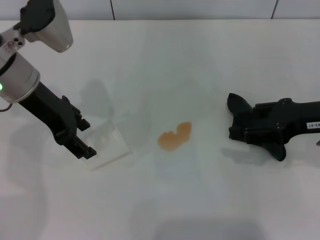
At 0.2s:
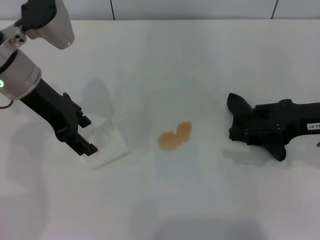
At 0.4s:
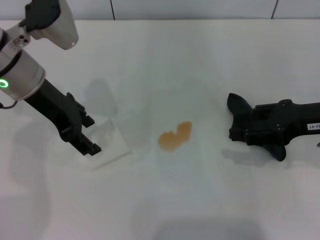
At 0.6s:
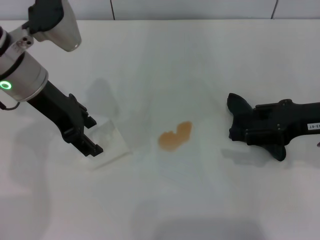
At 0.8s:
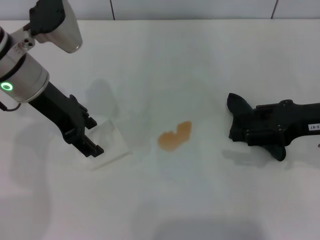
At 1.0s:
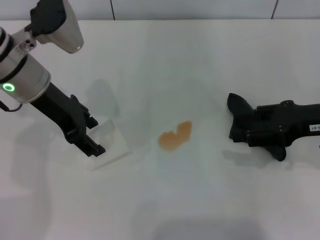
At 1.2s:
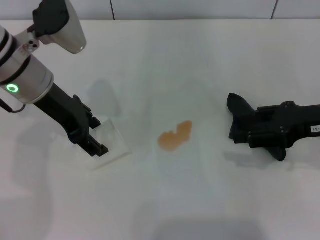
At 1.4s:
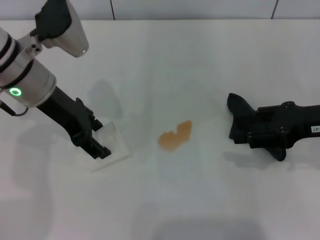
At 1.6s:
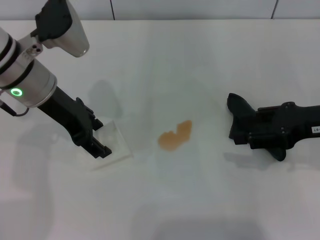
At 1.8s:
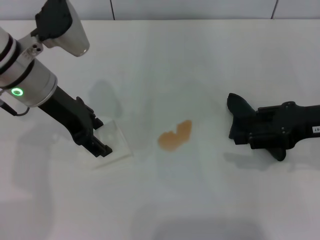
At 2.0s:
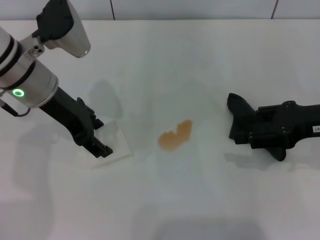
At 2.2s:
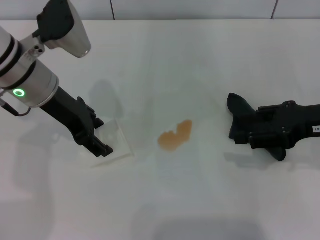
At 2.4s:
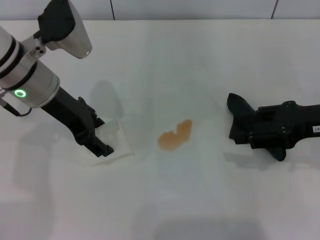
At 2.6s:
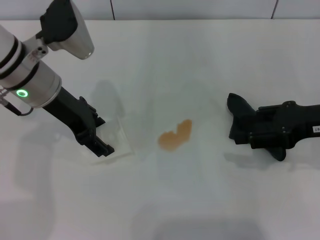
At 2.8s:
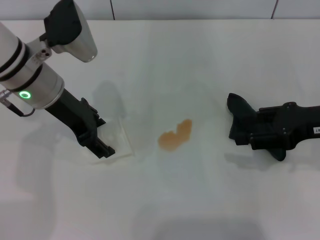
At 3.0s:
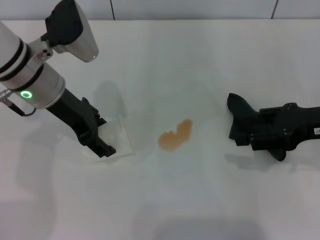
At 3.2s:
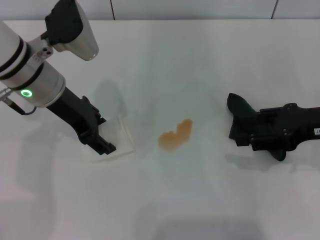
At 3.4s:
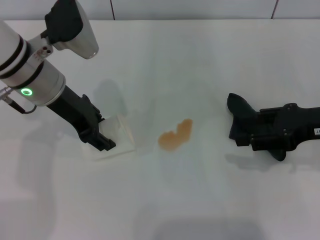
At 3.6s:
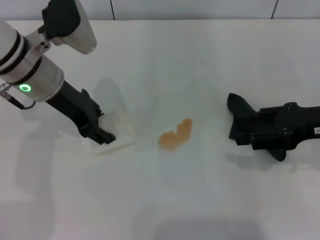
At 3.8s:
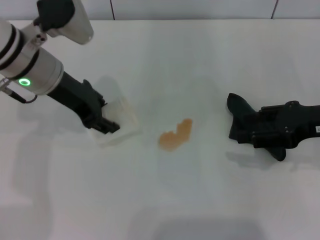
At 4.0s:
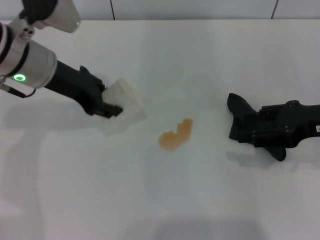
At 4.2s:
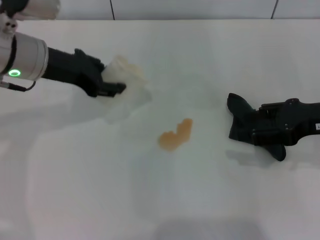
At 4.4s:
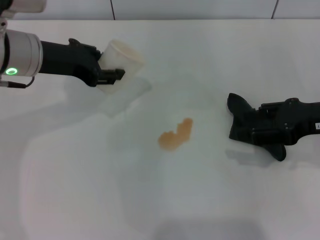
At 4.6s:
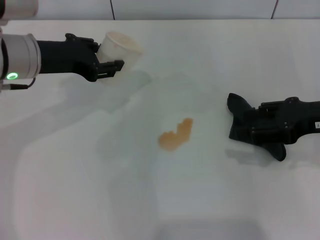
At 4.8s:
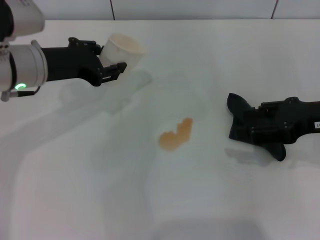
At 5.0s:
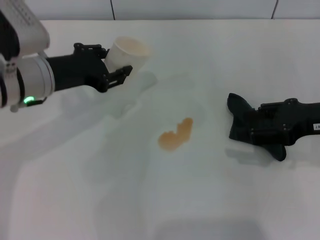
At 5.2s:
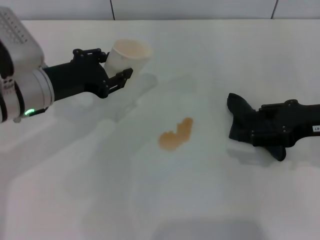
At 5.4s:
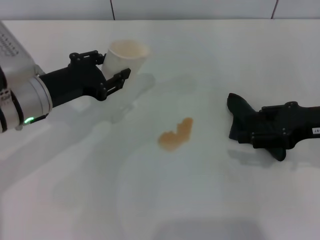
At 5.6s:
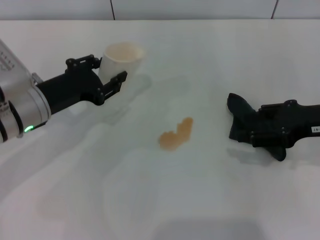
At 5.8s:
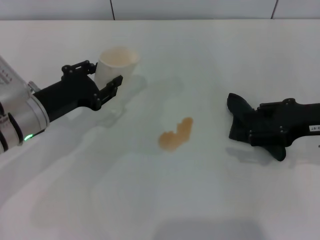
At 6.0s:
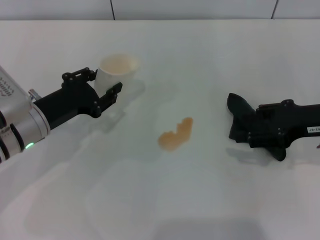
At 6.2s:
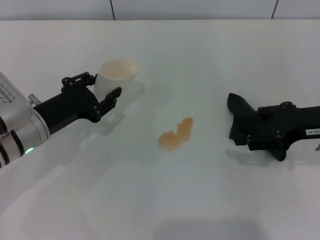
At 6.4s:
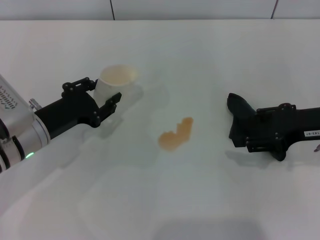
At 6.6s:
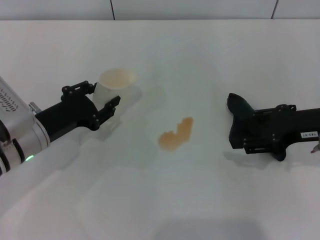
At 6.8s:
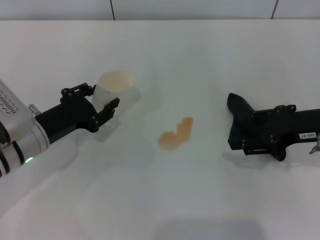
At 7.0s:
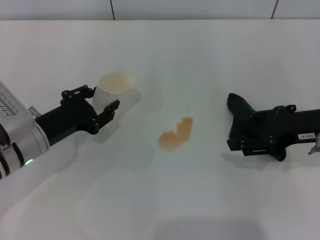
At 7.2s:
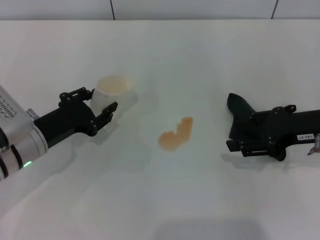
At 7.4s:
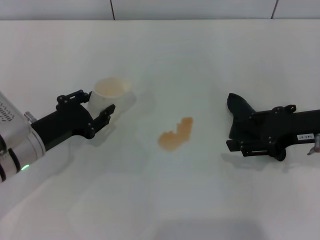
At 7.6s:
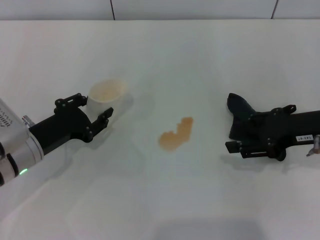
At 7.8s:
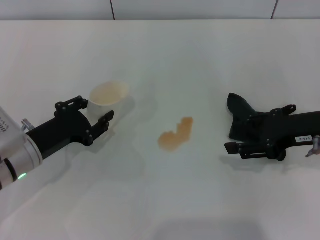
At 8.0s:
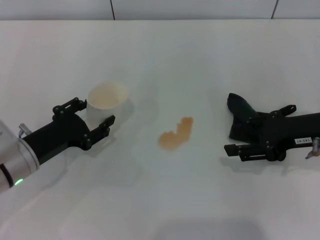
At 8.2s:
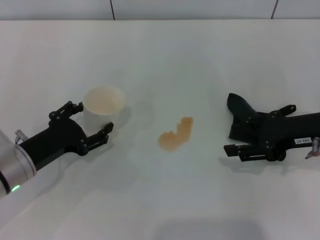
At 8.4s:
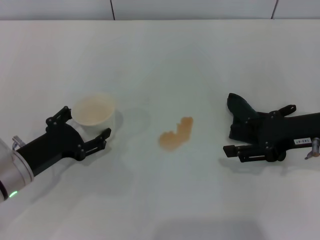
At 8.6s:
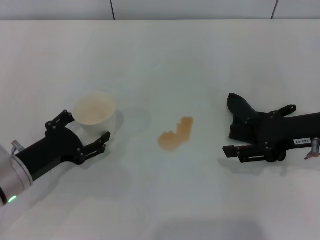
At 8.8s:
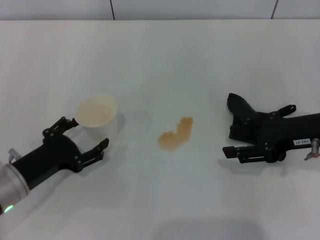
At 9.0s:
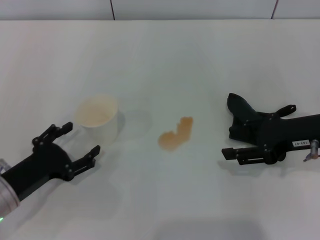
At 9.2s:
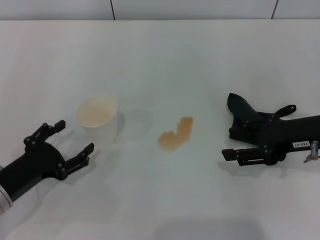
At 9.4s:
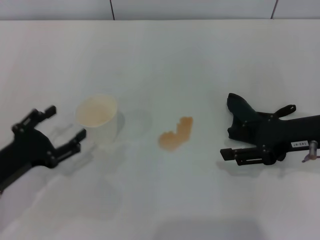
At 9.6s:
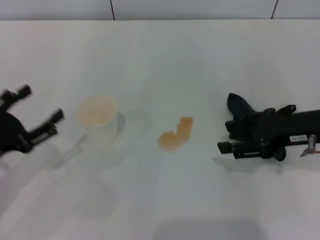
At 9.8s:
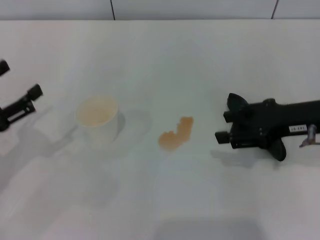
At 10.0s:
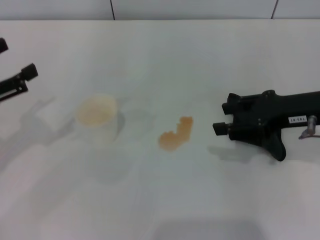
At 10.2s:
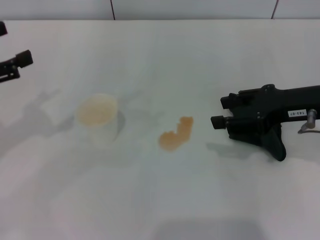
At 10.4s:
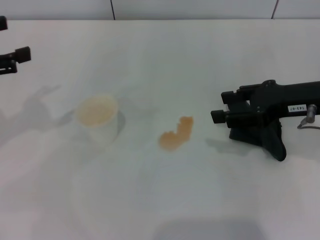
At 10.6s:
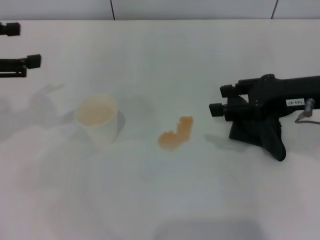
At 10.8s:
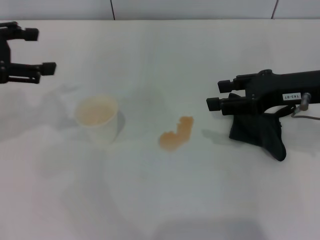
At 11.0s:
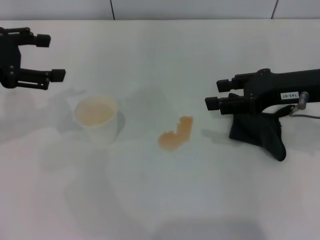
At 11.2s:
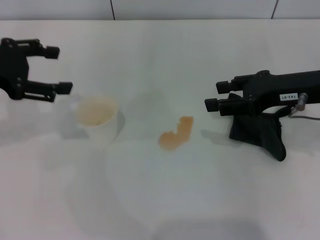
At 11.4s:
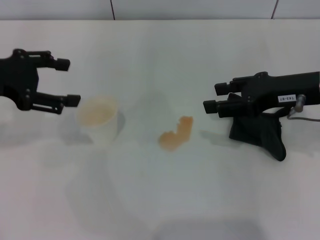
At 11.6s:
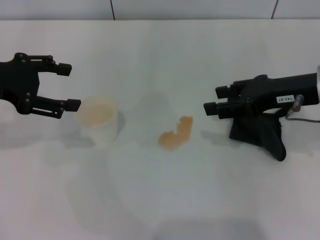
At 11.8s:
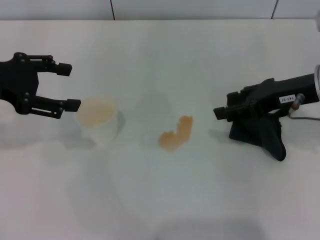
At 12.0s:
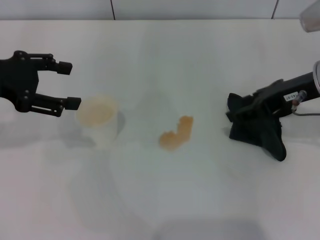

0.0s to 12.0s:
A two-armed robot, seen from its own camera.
Step, 0.0s to 3.4s: Grasp the paper cup with the left gripper.
Step, 3.6s to 9.0s: Stand the paper cup upright with the left gripper.
0.0s to 1.6s: The grippers stay close to where they were, moving slightly.
1.6s to 3.0s: Both grippers stay about where they are.
3.0s to 4.4s: The left gripper closes up.
4.4s to 6.0s: The left gripper shifts about 15 cm downward and backward.
6.0s to 7.6s: The grippers stay close to where they were, moving slightly.
7.6s to 9.0s: The left gripper travels backward by approximately 5 cm, and opens its fingers.
9.0s to 10.4s: The left gripper moves upward, forward and to the left, some 20 cm.
10.4s to 12.0s: The left gripper moves to the right, roughly 5 cm.

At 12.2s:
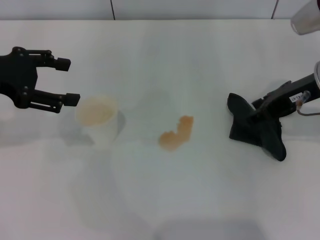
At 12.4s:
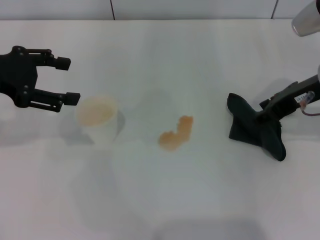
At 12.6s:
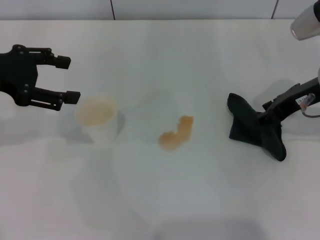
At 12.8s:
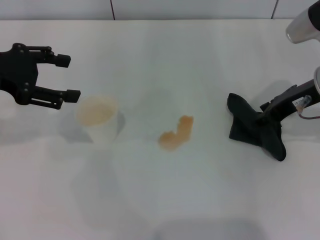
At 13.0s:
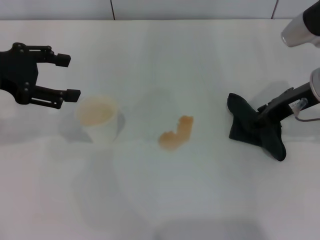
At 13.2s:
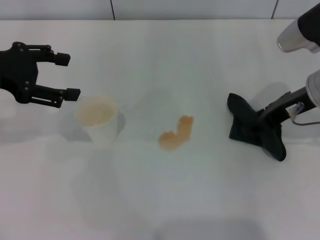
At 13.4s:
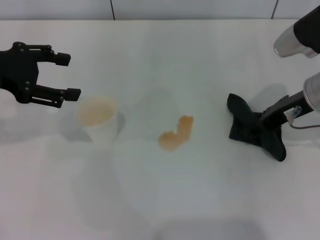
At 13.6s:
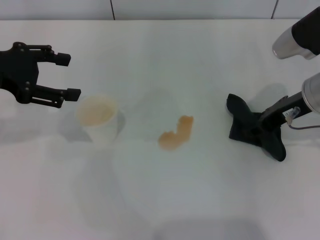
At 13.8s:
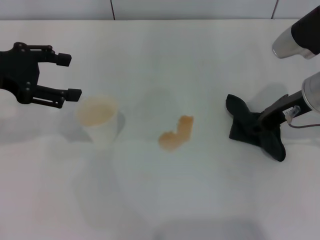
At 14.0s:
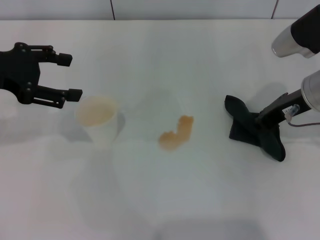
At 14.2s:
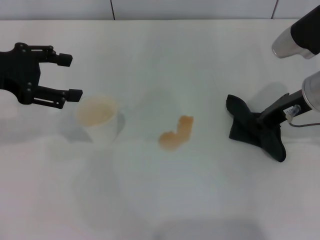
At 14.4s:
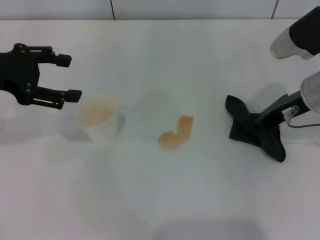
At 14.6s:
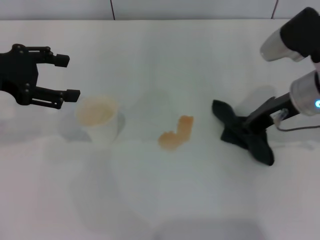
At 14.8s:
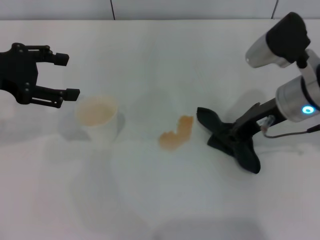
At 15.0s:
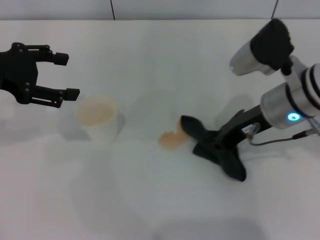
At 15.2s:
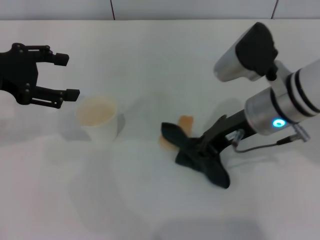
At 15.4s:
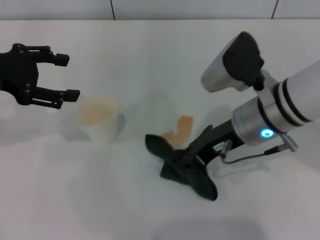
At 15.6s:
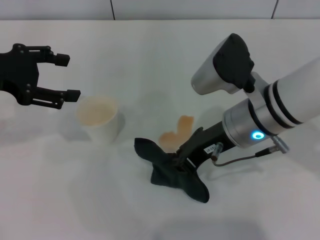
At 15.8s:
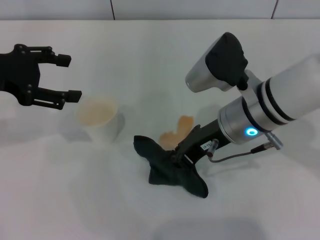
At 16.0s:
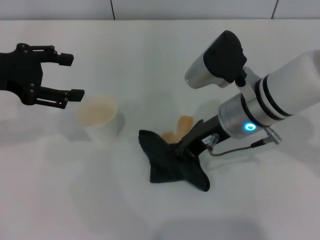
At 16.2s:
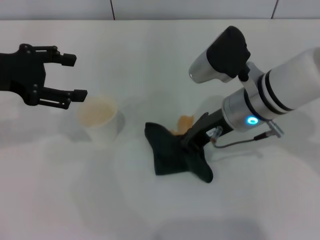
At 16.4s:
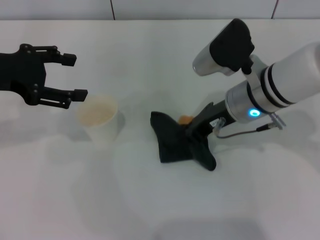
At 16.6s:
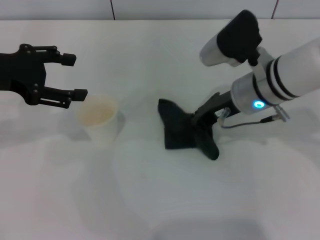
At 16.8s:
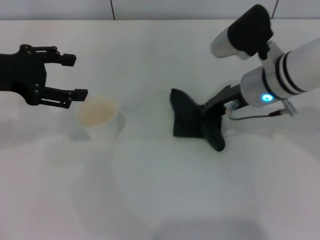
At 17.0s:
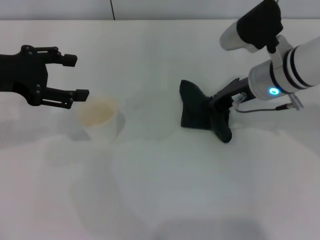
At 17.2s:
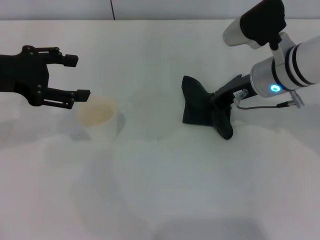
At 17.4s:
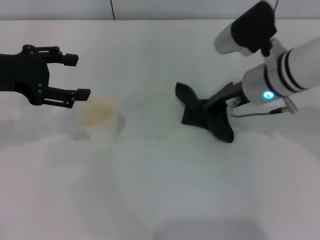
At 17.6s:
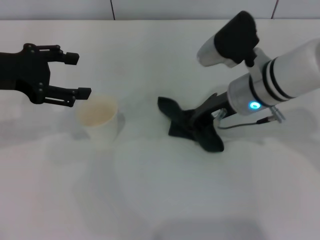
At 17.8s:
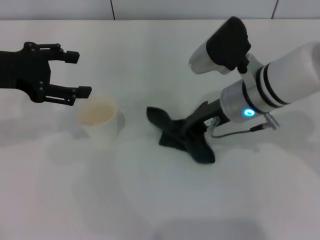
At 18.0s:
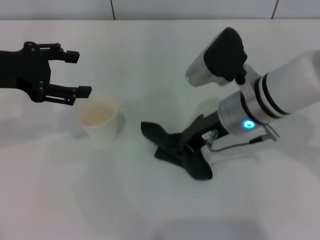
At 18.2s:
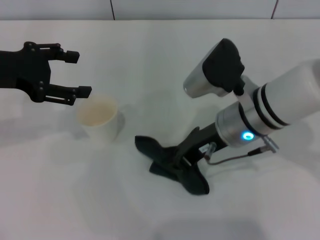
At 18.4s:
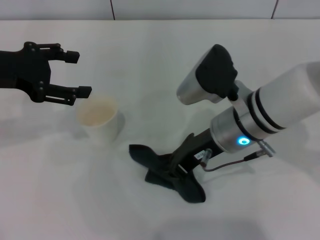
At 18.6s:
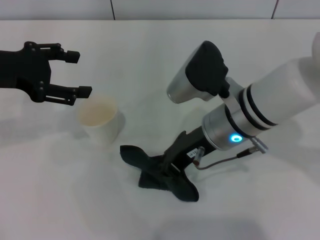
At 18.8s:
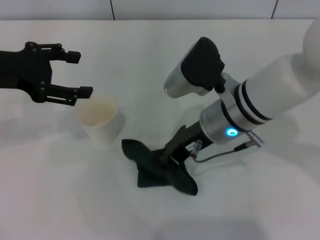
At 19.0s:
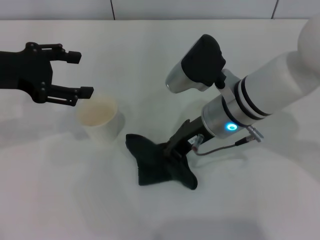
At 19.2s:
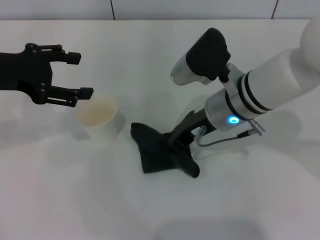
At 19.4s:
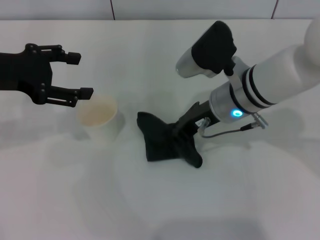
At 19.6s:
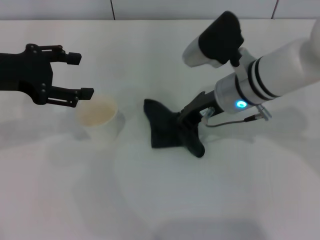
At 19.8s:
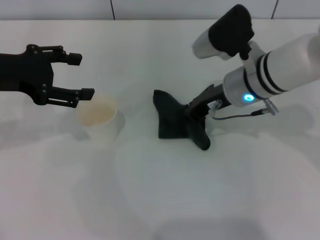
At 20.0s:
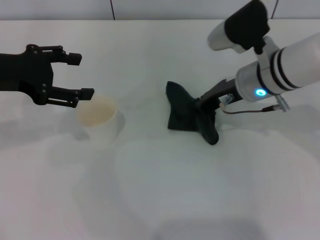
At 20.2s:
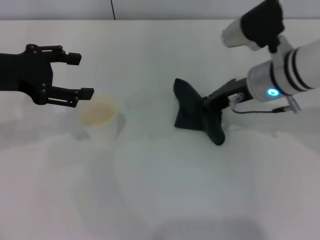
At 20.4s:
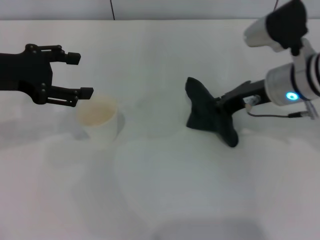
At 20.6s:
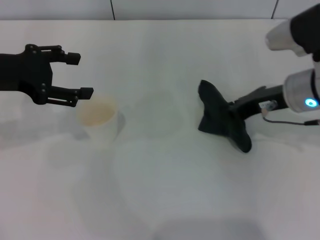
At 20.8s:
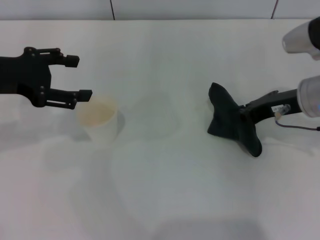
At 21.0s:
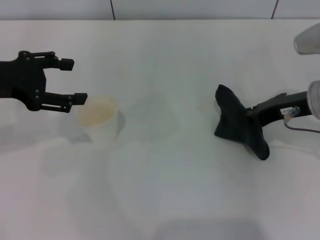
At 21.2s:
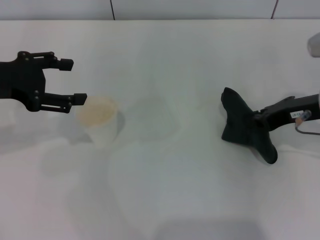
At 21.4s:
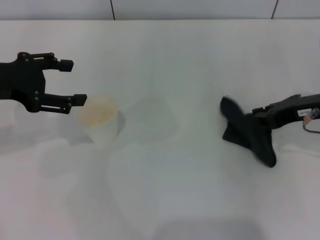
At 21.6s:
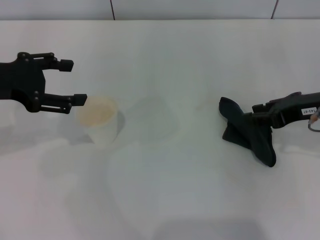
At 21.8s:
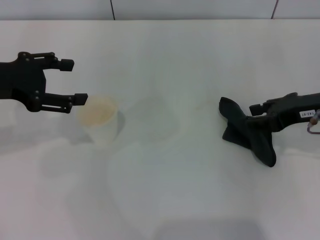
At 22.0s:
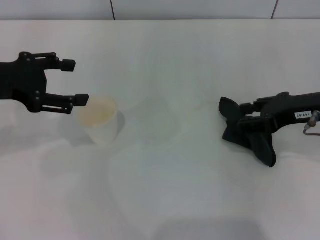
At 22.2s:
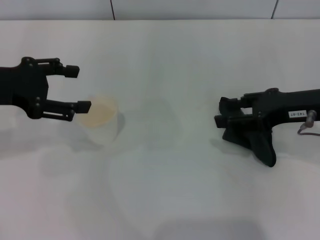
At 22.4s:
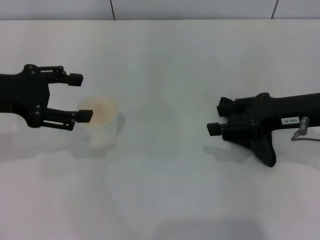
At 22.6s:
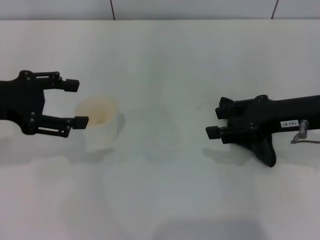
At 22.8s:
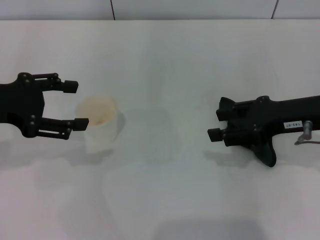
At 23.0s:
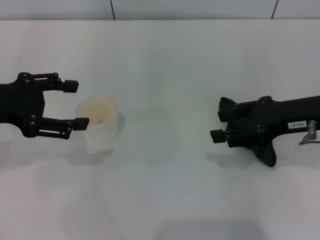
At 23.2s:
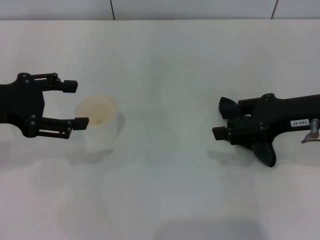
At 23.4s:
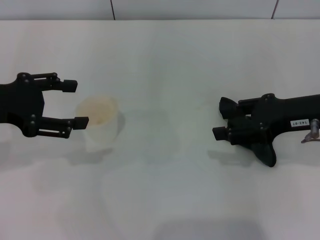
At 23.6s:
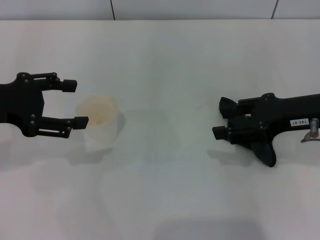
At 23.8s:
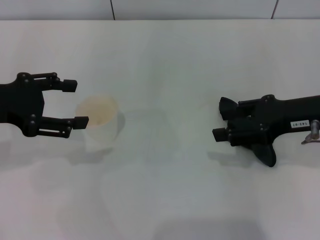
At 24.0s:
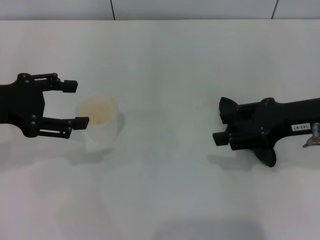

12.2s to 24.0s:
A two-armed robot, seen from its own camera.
Step, 12.2s to 14.2s: Grasp the rag with the right gripper.
Step, 14.6s to 20.2s: Wipe the stains off the table with the right gripper.
Step, 20.4s to 21.8s: Place the rag on the table with the right gripper.
12.2s to 13.6s: There are only small adjustments of the grippers.
13.6s to 15.2s: The right gripper travels to the left by approximately 10 cm, and closes up.
15.2s to 16.6s: The grippers stay close to where they were, moving slightly.
16.6s to 18.2s: The grippers stay close to where they were, moving slightly.
18.2s to 19.6s: There are only small adjustments of the grippers.
19.6s to 21.0s: The right gripper is displaced to the right by about 10 cm.
21.0s to 22.6s: The right gripper opens its fingers.
22.6s to 24.0s: Both grippers stay about where they are.
